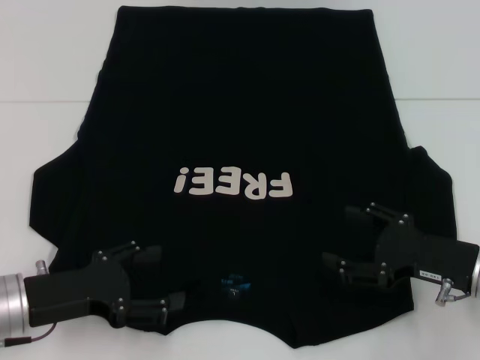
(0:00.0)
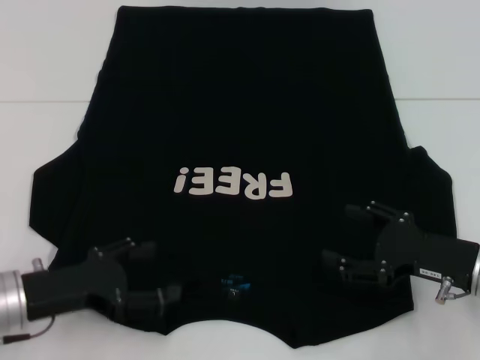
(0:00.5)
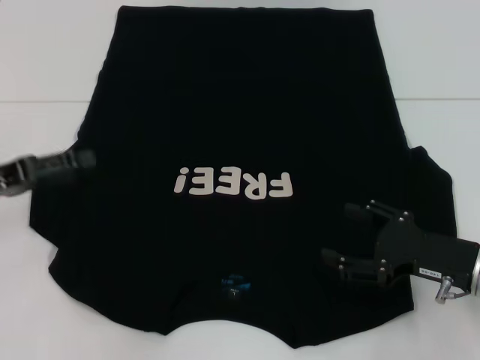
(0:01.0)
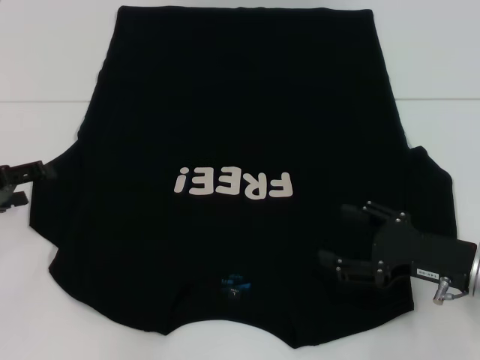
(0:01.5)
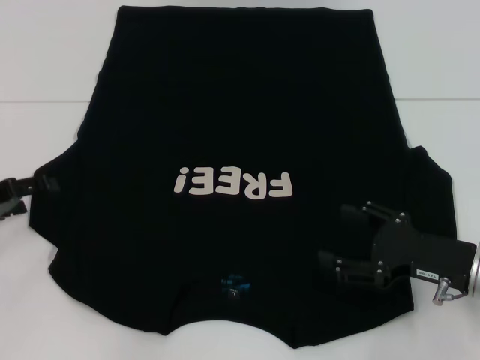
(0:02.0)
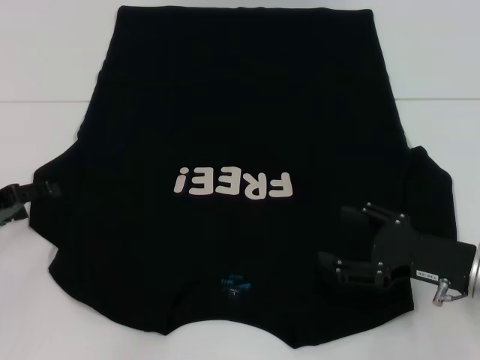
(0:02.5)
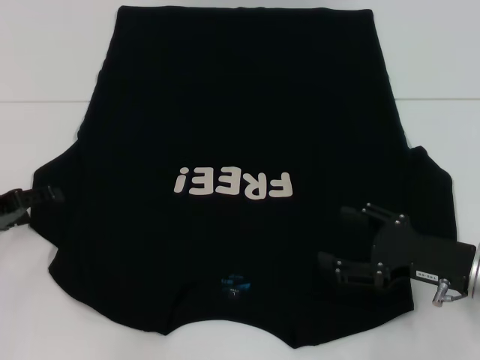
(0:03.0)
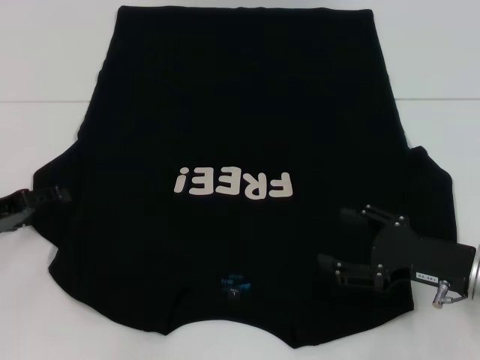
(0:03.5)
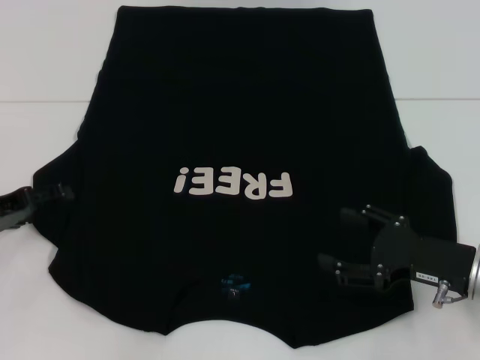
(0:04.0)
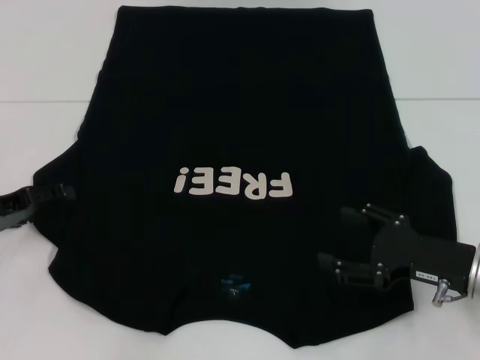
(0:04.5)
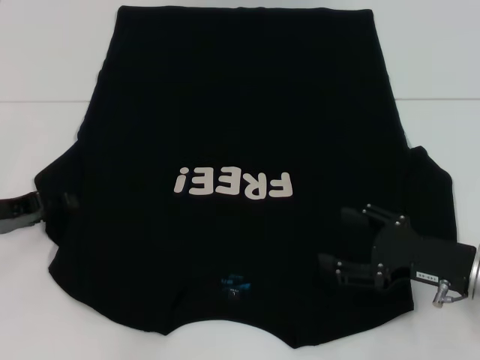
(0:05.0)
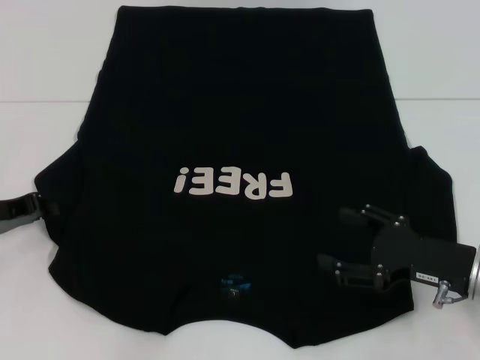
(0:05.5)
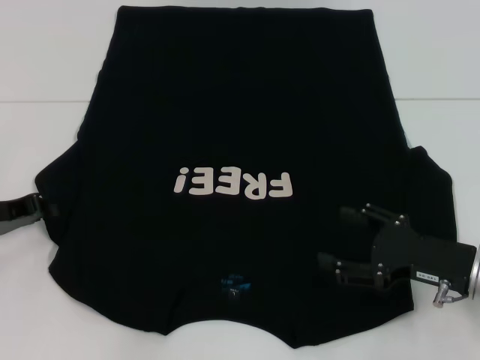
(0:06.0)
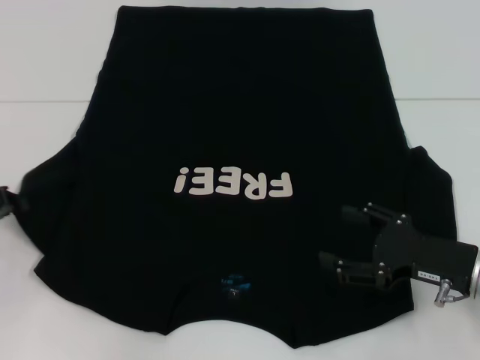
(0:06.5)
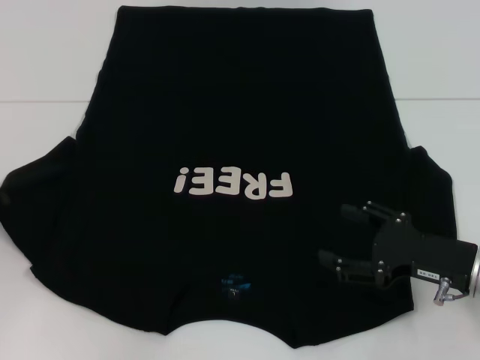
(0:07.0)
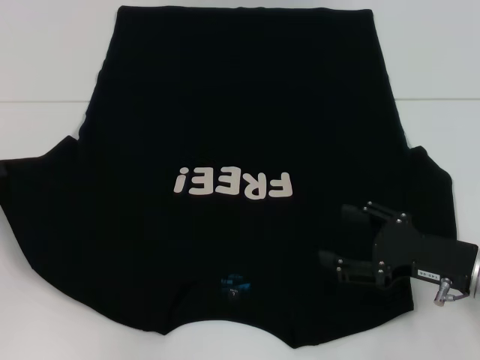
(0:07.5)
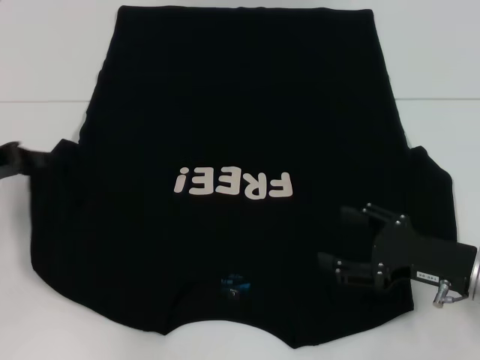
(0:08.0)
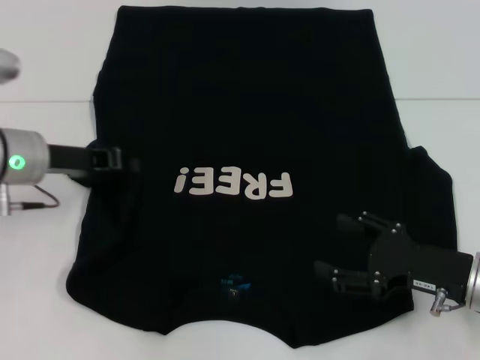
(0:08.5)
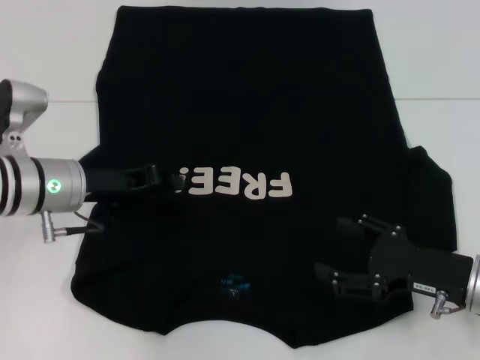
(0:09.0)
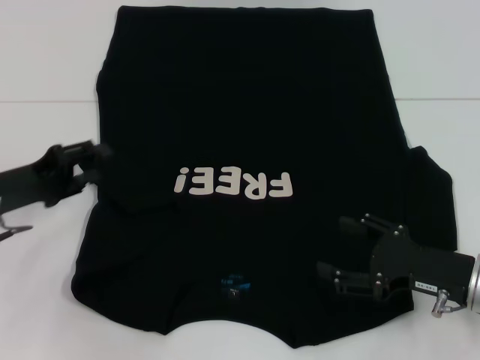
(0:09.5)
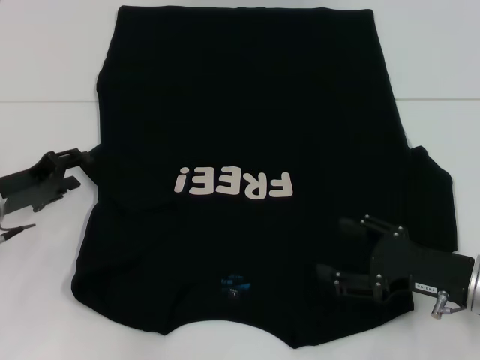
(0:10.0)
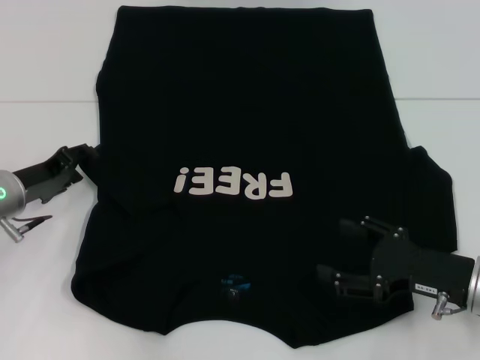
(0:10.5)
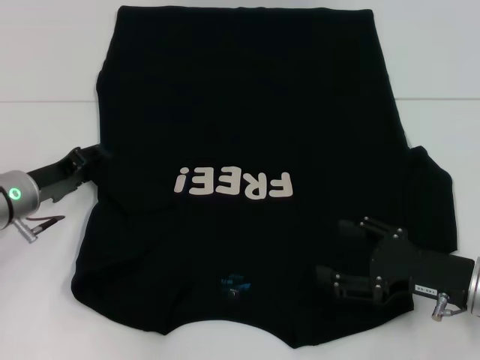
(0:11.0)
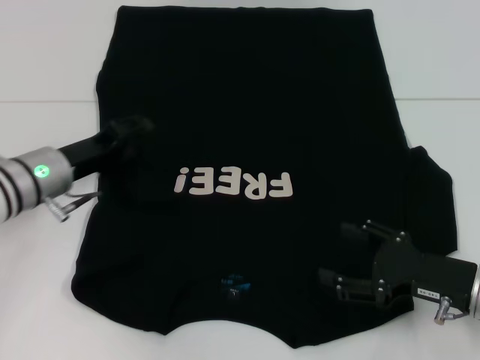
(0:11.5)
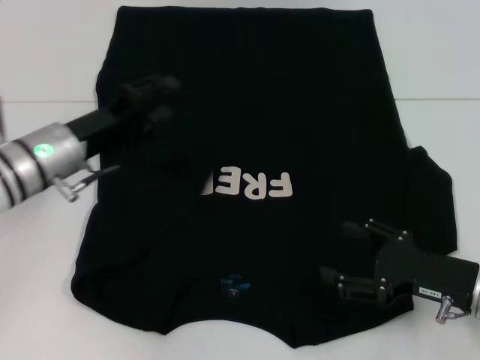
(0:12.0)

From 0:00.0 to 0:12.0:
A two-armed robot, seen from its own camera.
From 0:00.0 to 0:02.0: The left gripper travels to the left and forward by approximately 15 cm.
From 0:02.0 to 0:04.0: The grippers stay close to where they were, moving slightly.
From 0:04.0 to 0:06.0: The left gripper closes.
From 0:06.0 to 0:08.0: The left gripper is displaced upward by approximately 5 cm.
From 0:08.0 to 0:10.0: The left gripper travels downward by some 5 cm, and opens its fingers.
From 0:10.0 to 0:12.0: The left gripper travels to the right by roughly 10 cm.

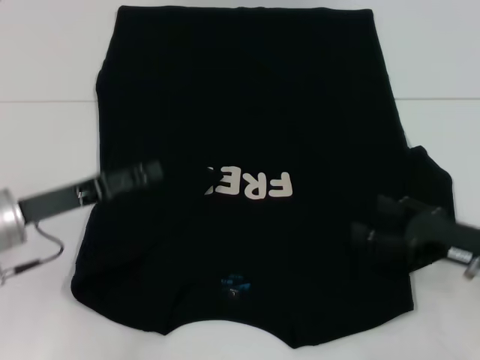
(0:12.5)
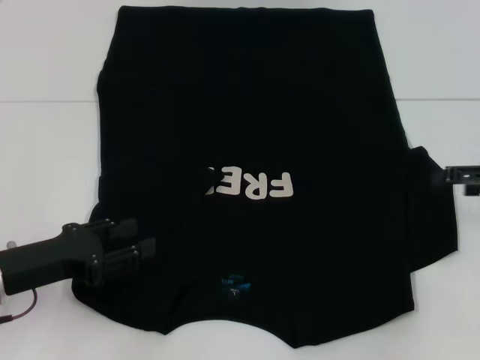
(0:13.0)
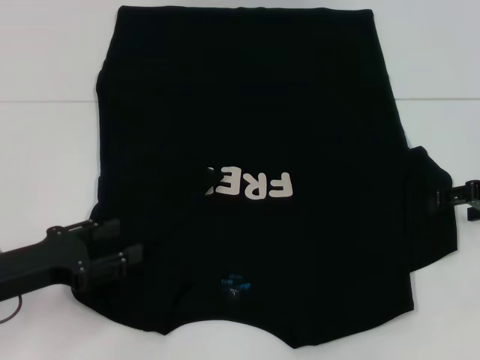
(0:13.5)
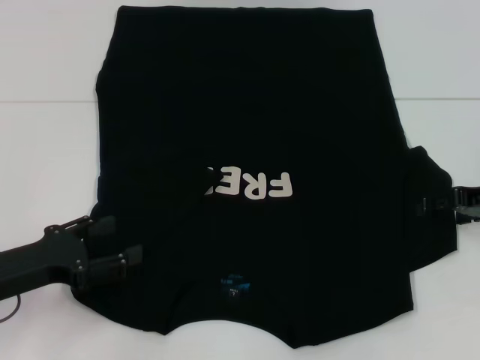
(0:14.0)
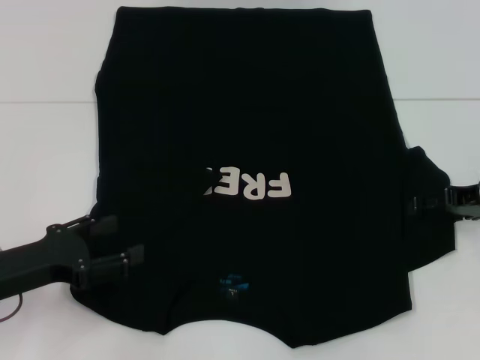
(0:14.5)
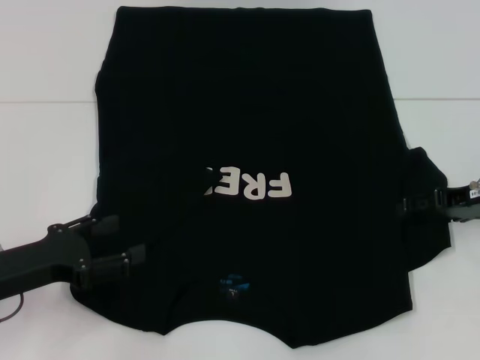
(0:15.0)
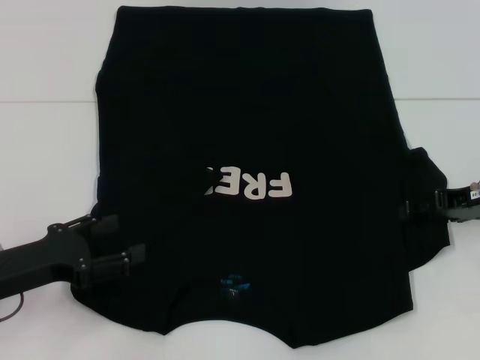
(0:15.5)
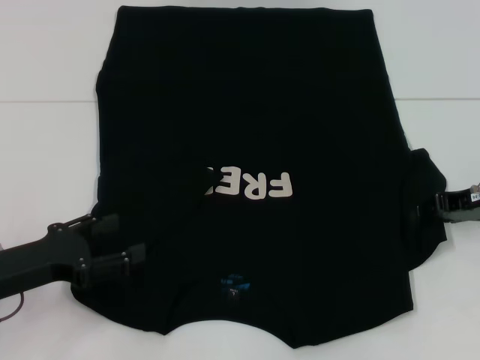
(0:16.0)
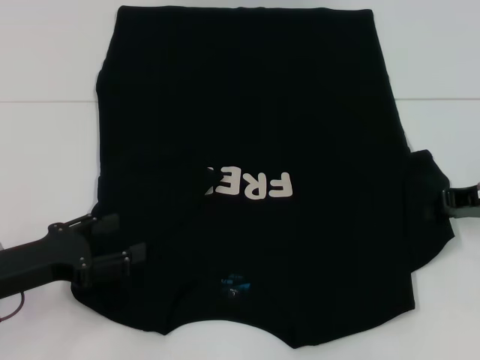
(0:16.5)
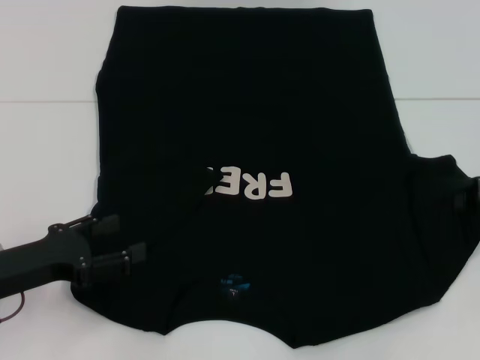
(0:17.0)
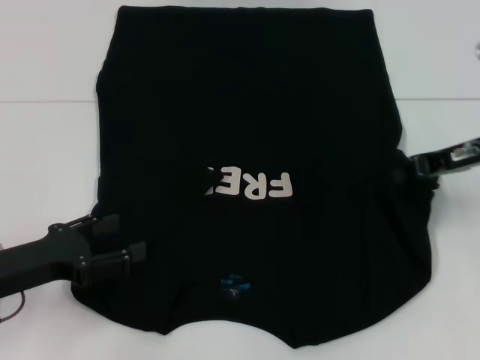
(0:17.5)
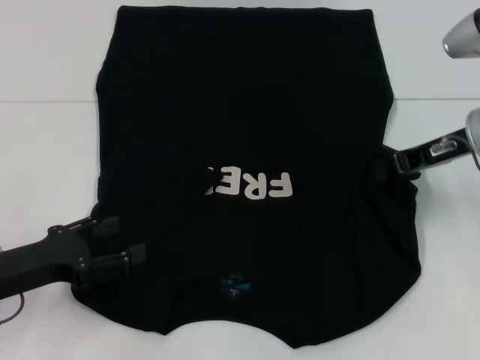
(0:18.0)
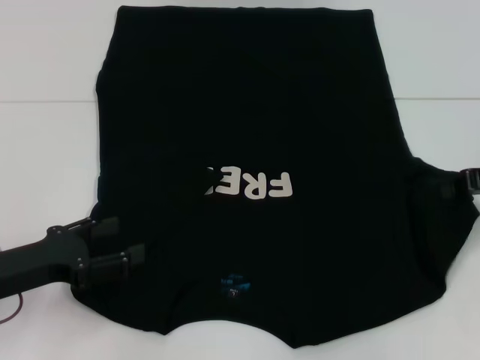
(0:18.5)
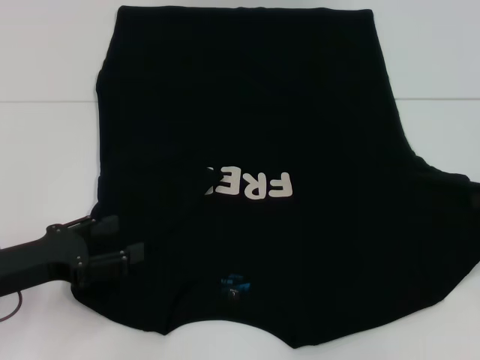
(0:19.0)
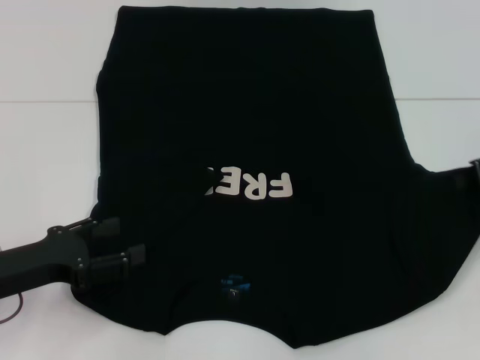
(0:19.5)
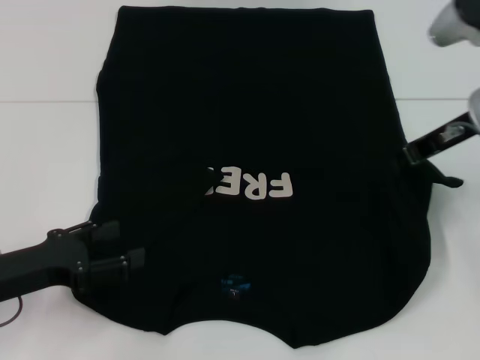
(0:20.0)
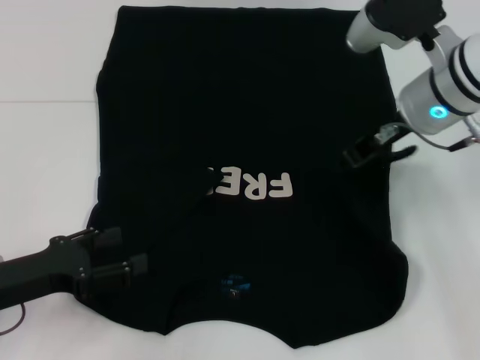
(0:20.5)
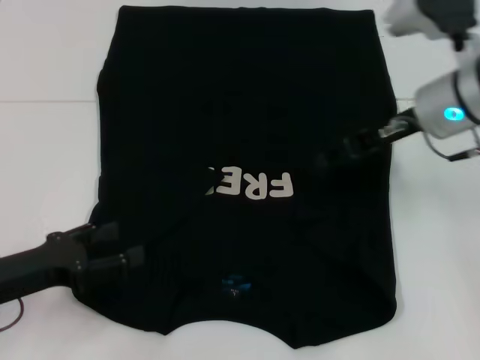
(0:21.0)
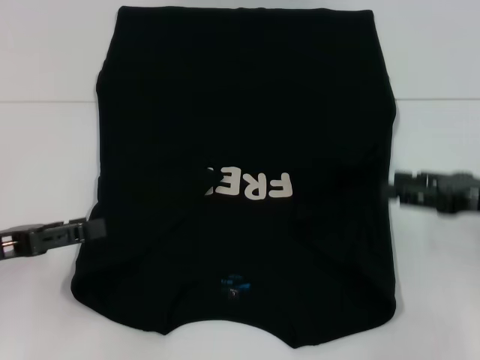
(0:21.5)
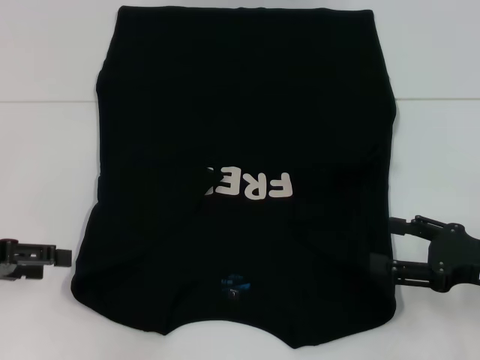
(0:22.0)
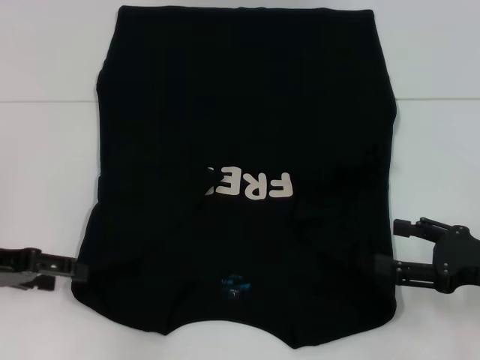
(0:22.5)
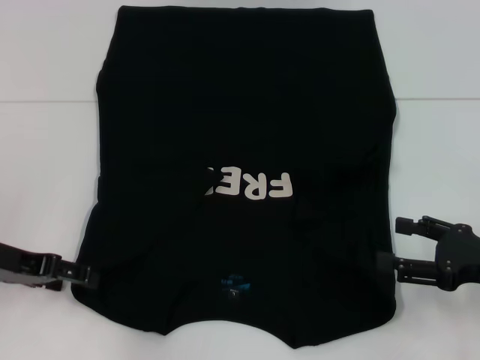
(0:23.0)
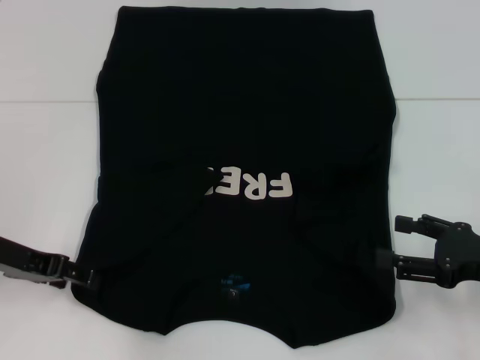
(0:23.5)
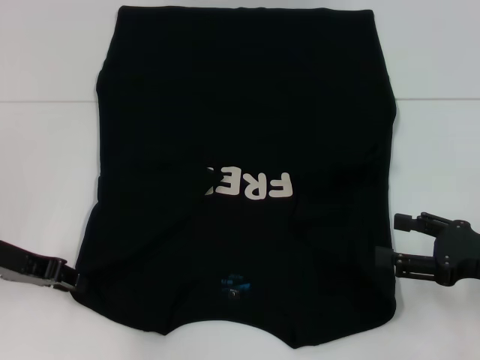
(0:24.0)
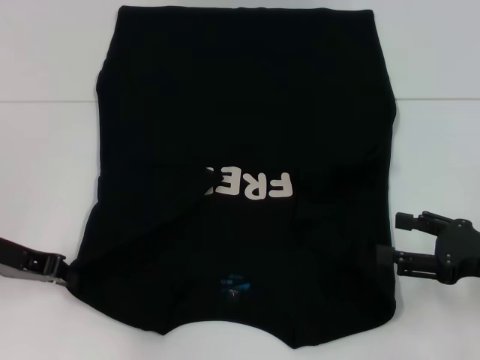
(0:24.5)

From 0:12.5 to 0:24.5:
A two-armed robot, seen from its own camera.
Step, from 0:13.5 to 0:21.5: Fold the bottom right sleeve with your right hand.
From 0:12.5 to 0:14.5: The left gripper moves backward, about 5 cm. The right gripper moves forward and upward, approximately 10 cm.
From 0:14.5 to 0:16.5: The right gripper closes.
From 0:16.5 to 0:18.5: The right gripper moves some 5 cm to the left and comes back.
From 0:18.5 to 0:20.5: The right gripper heads to the left, covering roughly 15 cm.
From 0:20.5 to 0:22.5: The left gripper changes place by roughly 10 cm; the right gripper heads backward, to the right and downward, covering some 25 cm, and opens.
From 0:22.5 to 0:24.5: The left gripper closes its fingers.

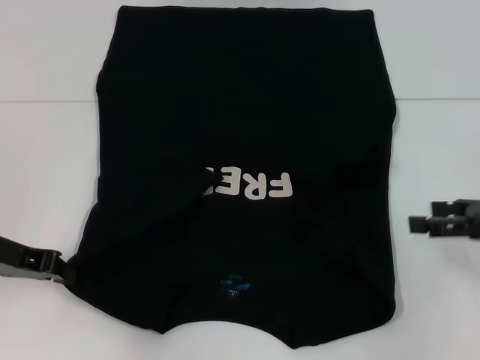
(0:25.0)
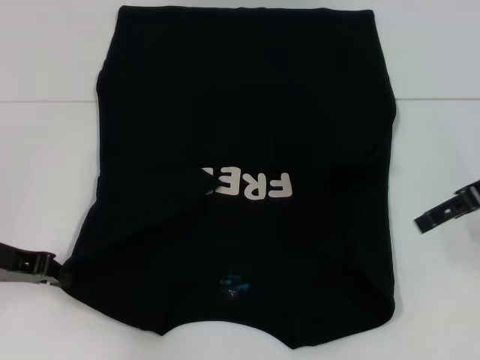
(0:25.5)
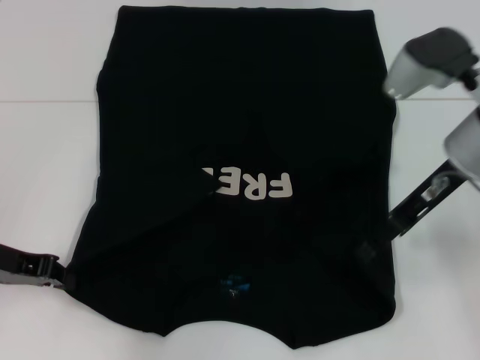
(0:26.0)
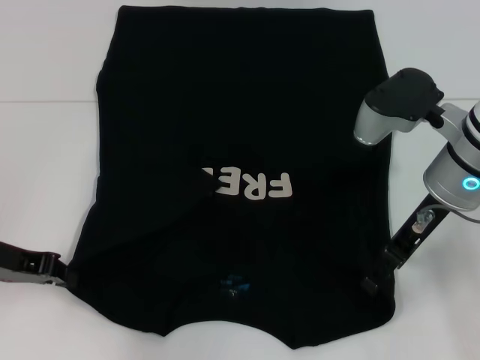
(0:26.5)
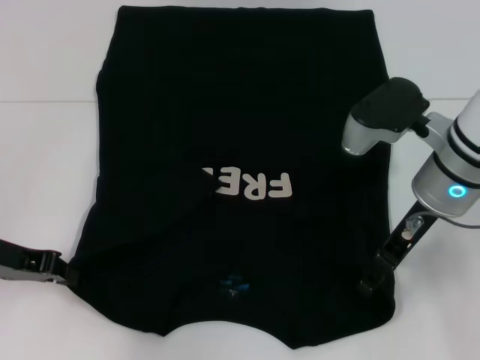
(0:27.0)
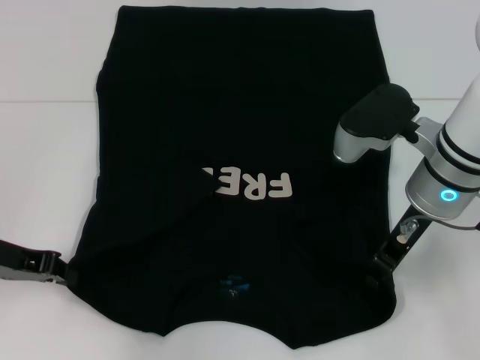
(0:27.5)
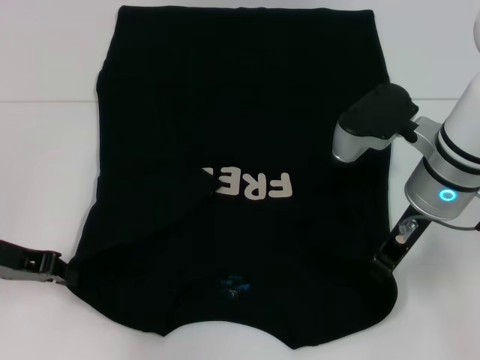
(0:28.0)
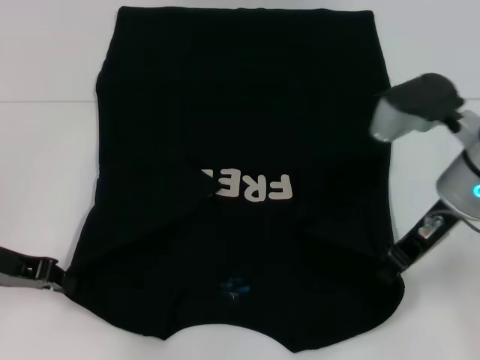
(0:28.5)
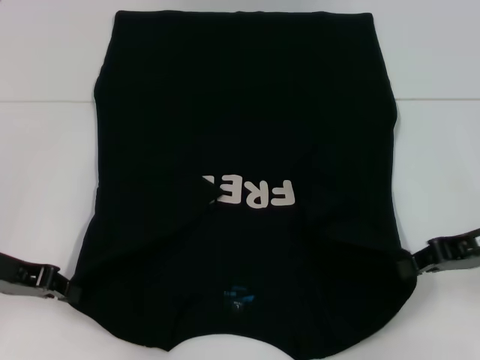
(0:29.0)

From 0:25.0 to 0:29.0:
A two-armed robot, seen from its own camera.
Step, from 0:25.0 to 0:28.5: Grab the bottom right corner with your right hand.
From 0:25.0 to 0:27.0: The right gripper travels to the left by approximately 15 cm.
From 0:27.0 to 0:29.0: The right gripper is displaced to the right by some 10 cm, and closes up.
